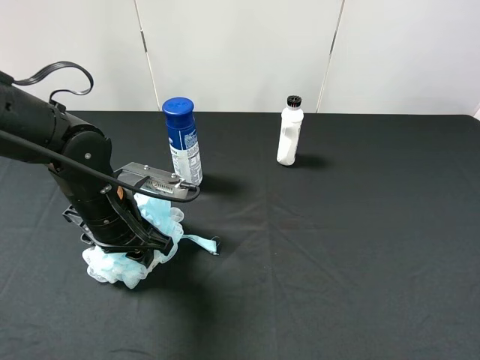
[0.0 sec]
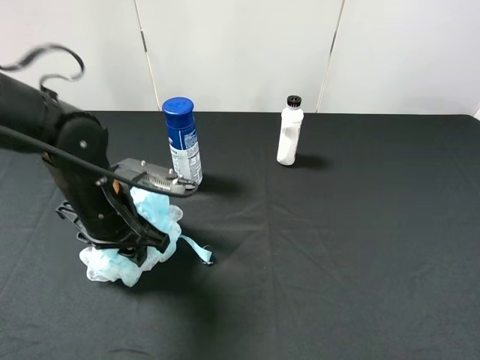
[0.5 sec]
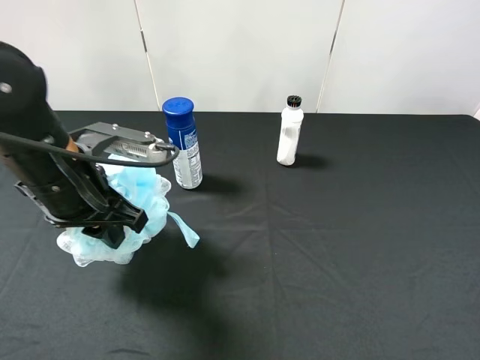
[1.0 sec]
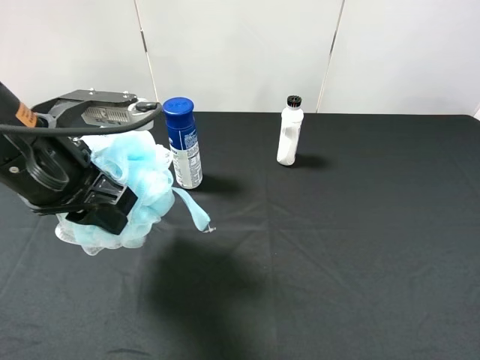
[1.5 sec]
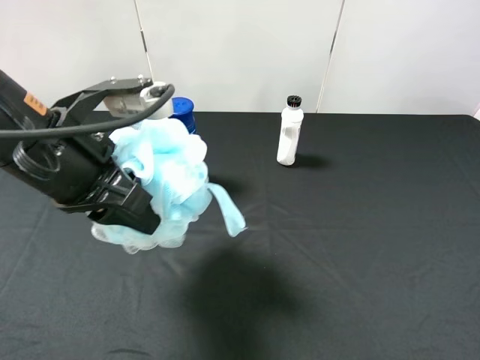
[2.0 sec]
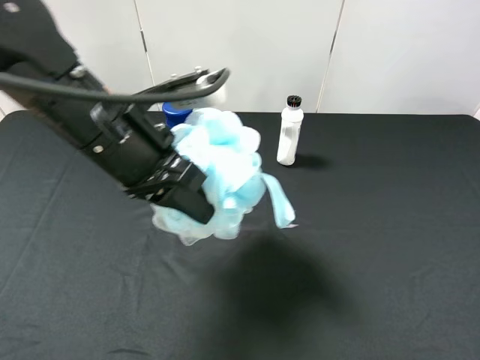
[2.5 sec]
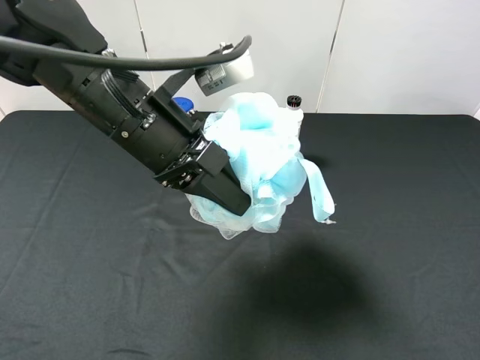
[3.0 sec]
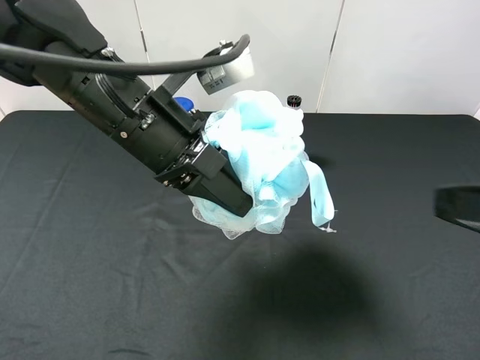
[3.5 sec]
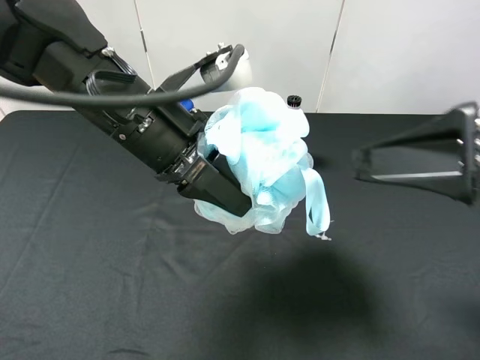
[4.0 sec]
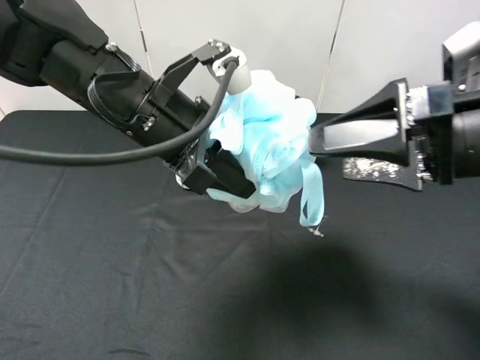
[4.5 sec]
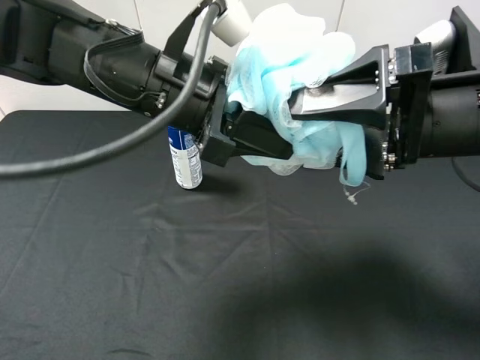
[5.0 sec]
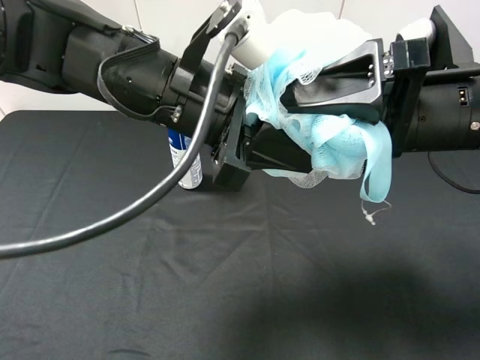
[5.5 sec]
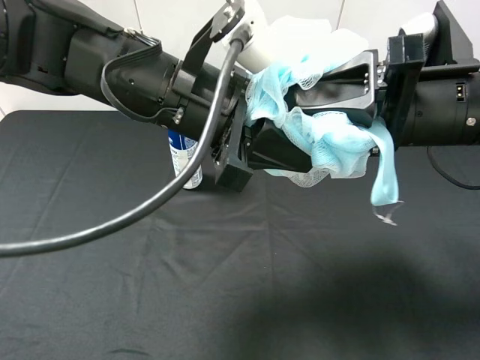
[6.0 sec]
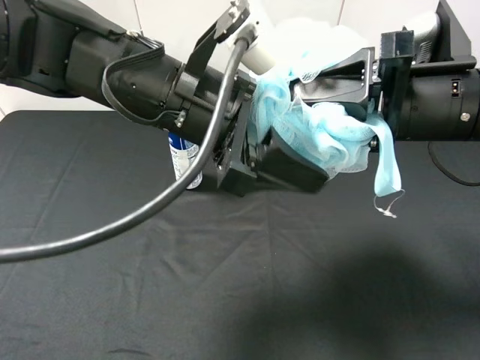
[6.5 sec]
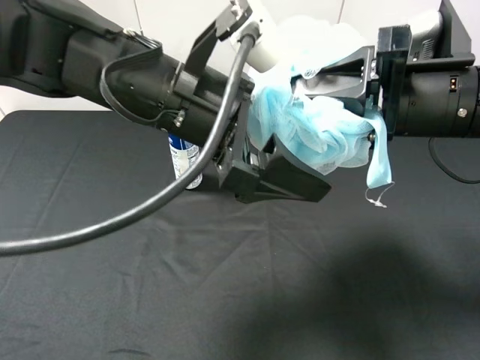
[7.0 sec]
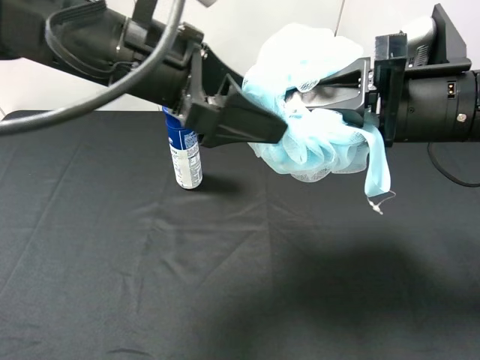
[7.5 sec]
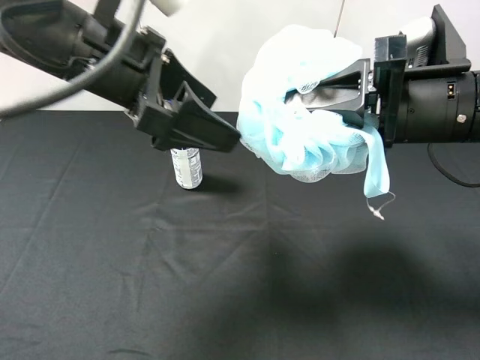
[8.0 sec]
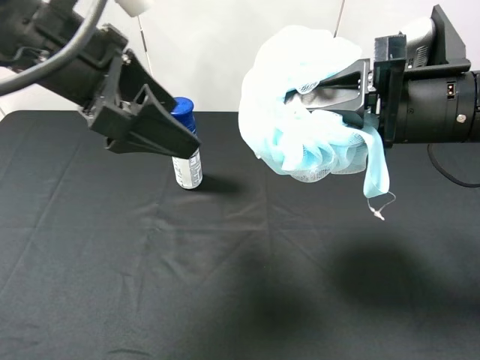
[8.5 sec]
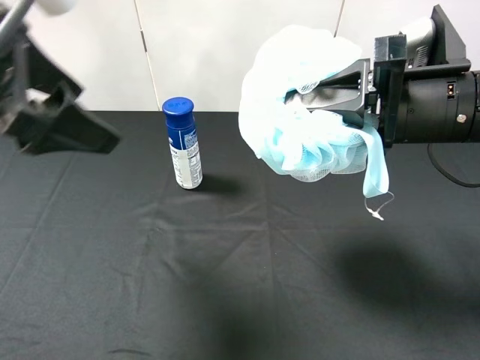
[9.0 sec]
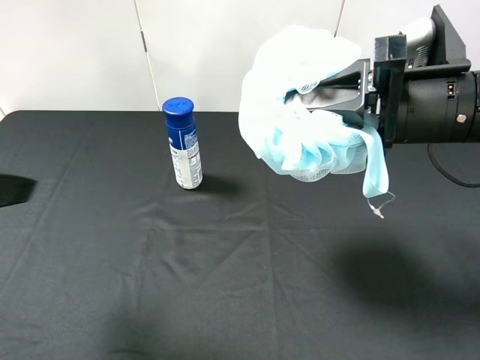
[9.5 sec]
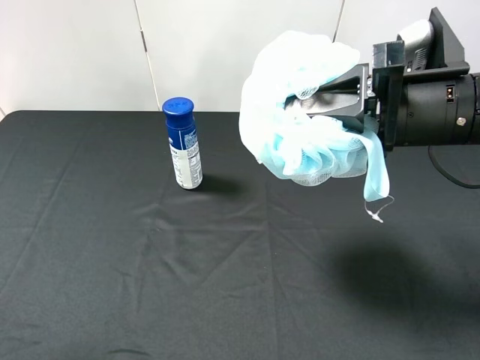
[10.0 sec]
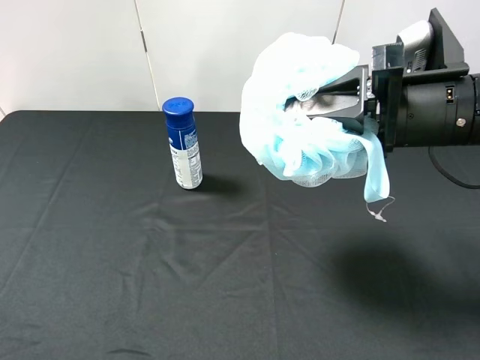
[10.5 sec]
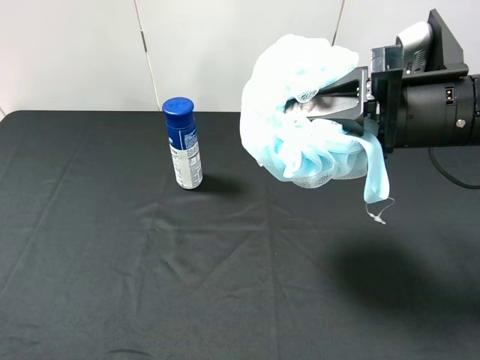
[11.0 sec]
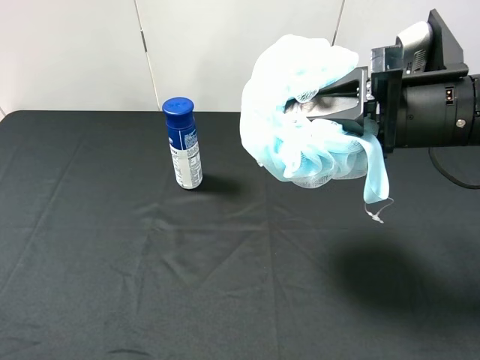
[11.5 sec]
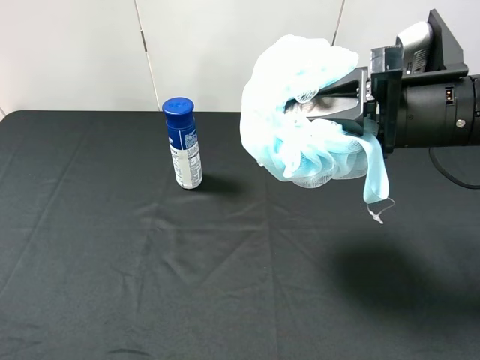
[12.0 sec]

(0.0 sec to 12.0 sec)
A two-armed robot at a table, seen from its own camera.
Task of the whole recording: use the left gripper to pick up the item and transfer it from the left gripper to the right gripper.
0.0 sec - 2.0 sec: The left gripper moves upward, roughly 15 cm.
2.0 sec - 4.0 sec: The left gripper heads to the right, covering roughly 5 cm, while the right gripper travels forward and to the left by about 15 cm.
4.0 sec - 6.0 sec: The right gripper goes approximately 10 cm forward, and closes.
6.0 sec - 8.0 sec: The left gripper shifts roughly 10 cm to the left, and opens; the right gripper closes.
8.0 sec - 10.0 sec: The left gripper travels backward and to the left by roughly 25 cm.
10.0 sec - 12.0 sec: There are only small adjustments of the grippers.

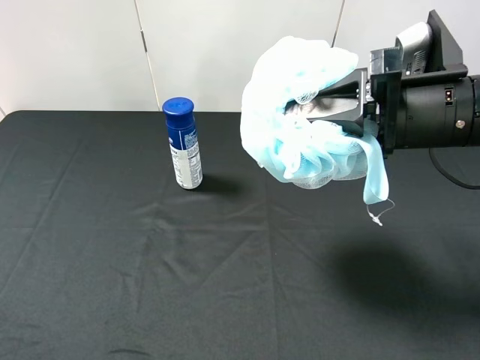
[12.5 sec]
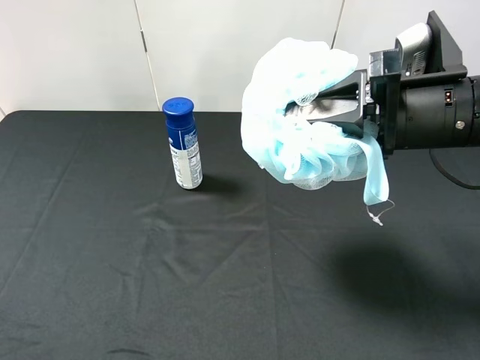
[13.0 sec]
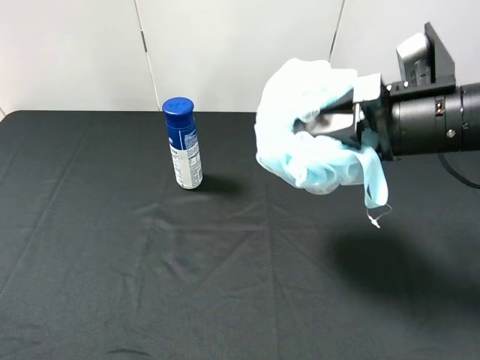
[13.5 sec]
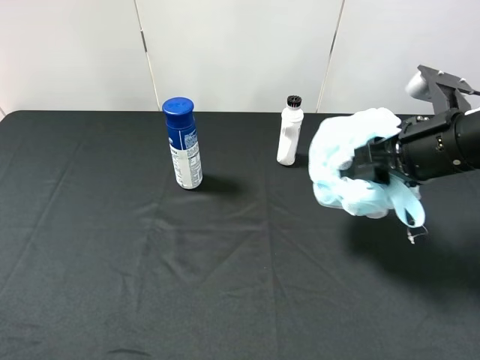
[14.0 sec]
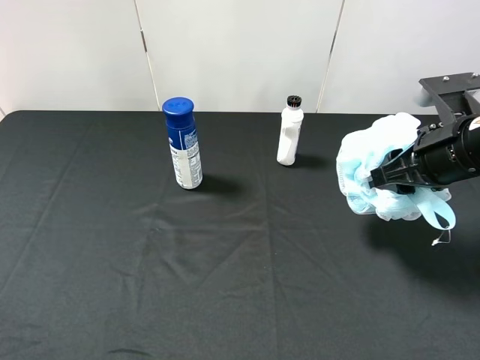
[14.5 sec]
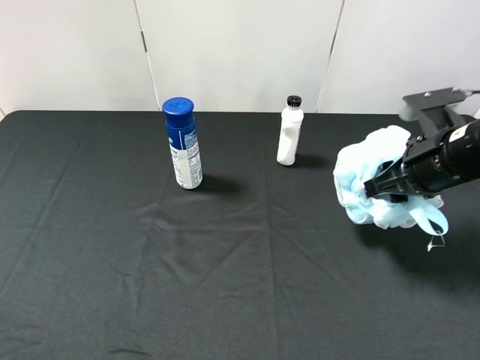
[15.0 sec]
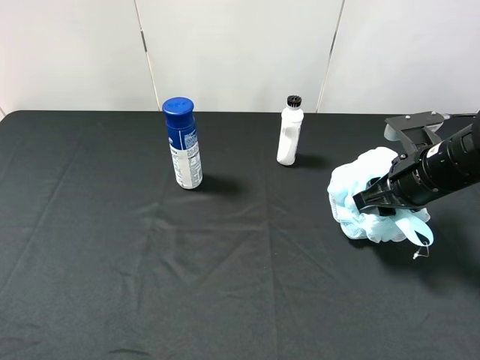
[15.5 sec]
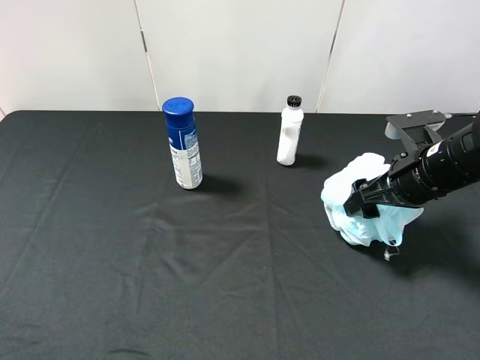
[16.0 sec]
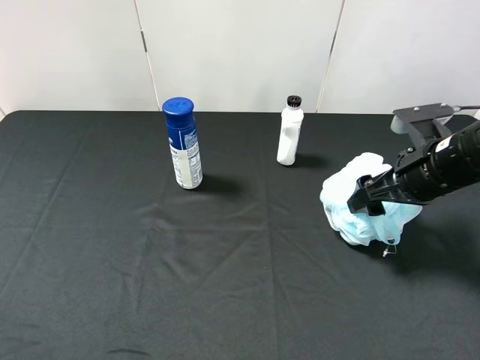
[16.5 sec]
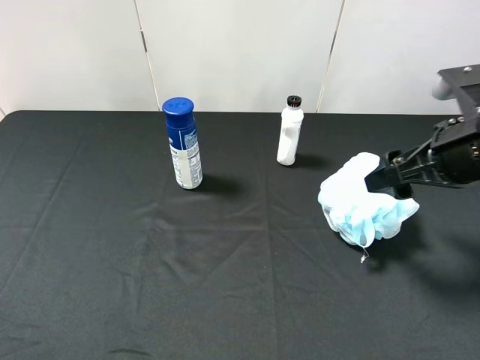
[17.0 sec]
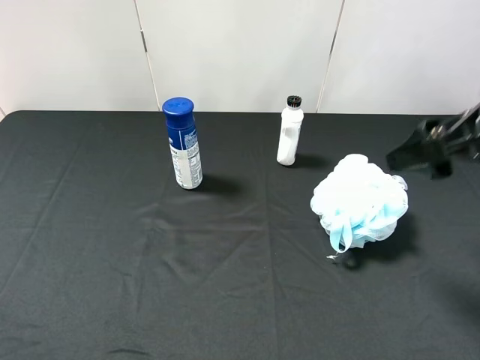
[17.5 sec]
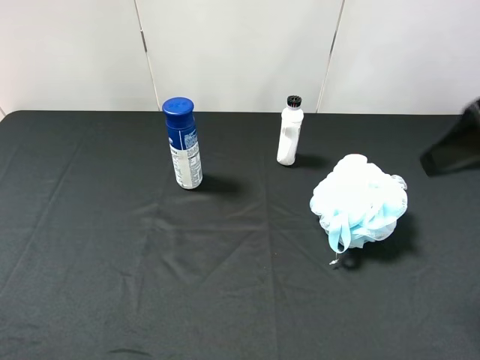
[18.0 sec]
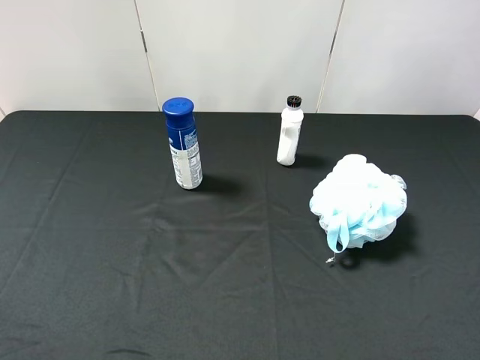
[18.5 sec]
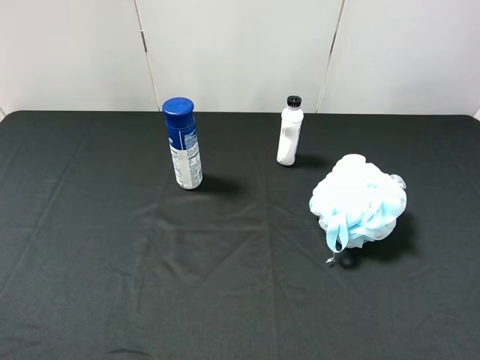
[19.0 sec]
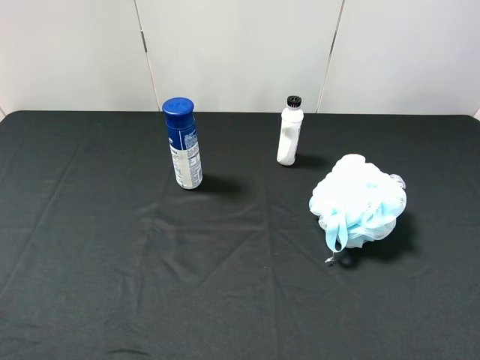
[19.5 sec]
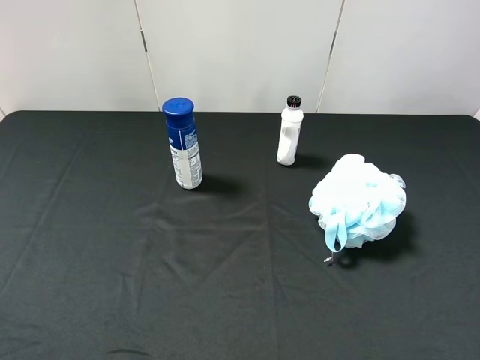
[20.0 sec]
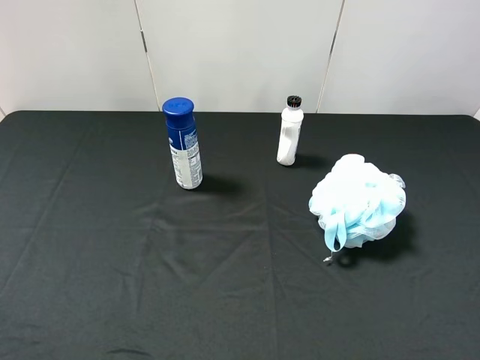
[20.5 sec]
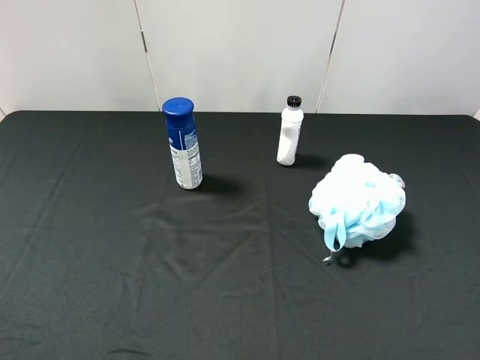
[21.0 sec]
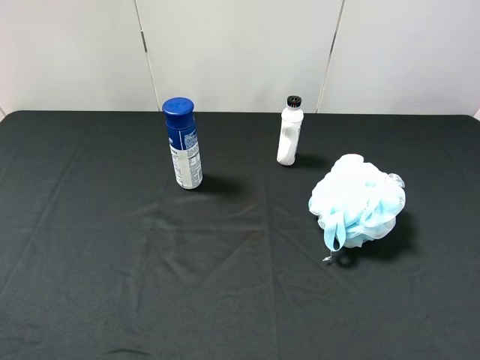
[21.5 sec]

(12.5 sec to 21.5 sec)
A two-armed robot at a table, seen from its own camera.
Task of the whole recording: use the left gripper to pick up the item and transfer it from the left gripper to the right gripper.
12.5 sec - 14.5 sec: The right gripper travels to the right by approximately 5 cm.
14.5 sec - 17.0 sec: The right gripper travels downward and back again, about 5 cm each way, and opens.
17.0 sec - 19.5 sec: The right gripper moves backward, approximately 20 cm.
